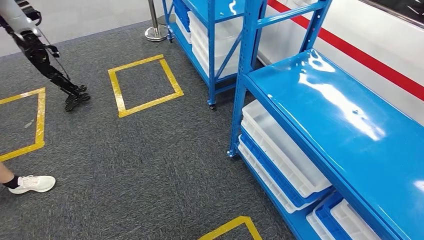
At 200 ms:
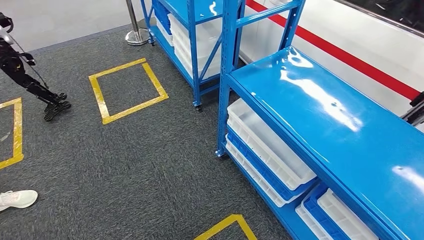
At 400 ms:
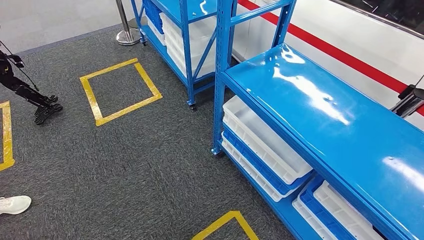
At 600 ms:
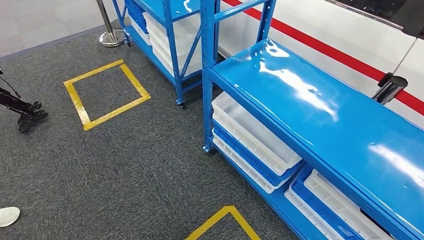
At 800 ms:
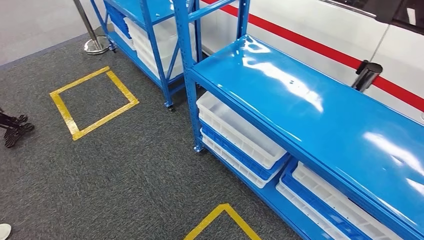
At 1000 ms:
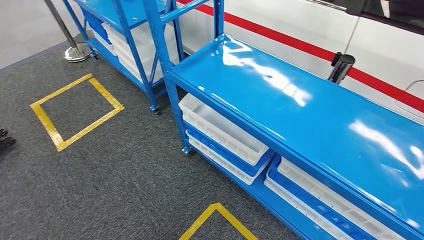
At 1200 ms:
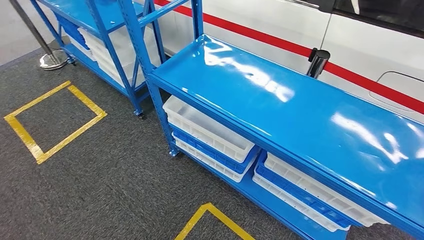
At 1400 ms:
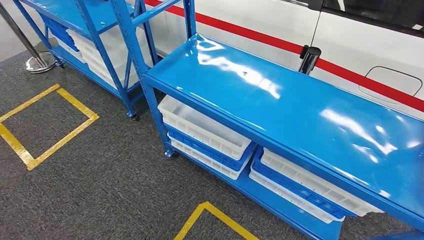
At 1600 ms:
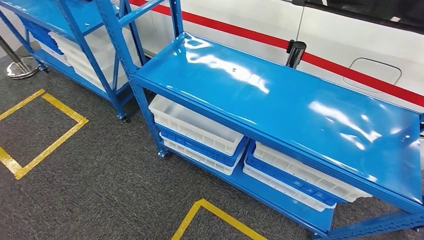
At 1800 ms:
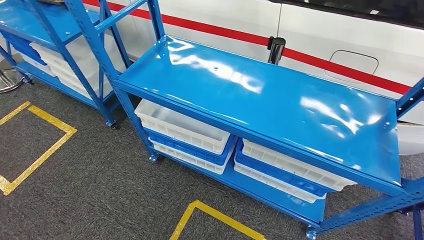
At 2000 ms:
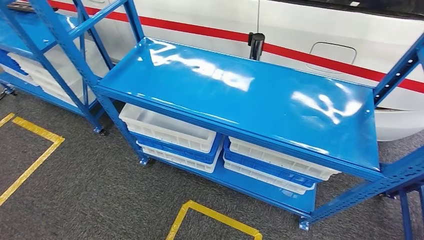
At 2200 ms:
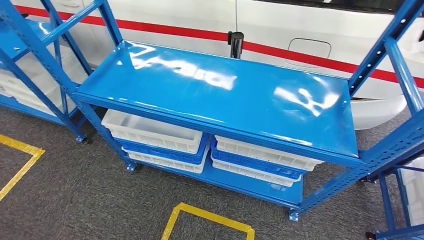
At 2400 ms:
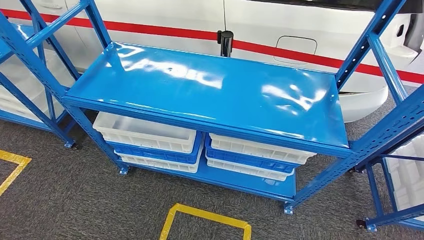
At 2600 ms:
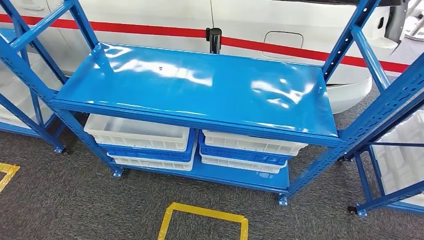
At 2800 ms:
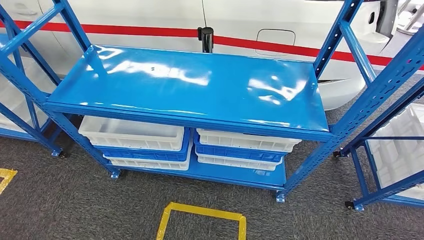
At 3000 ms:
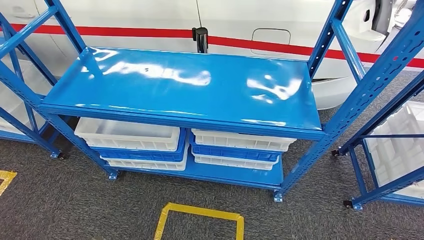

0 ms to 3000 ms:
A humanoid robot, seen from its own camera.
Step, 0 ms to 3000 ms: Move to the initial position of the shelf.
